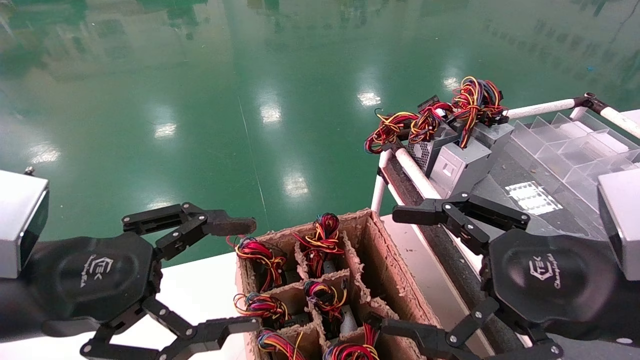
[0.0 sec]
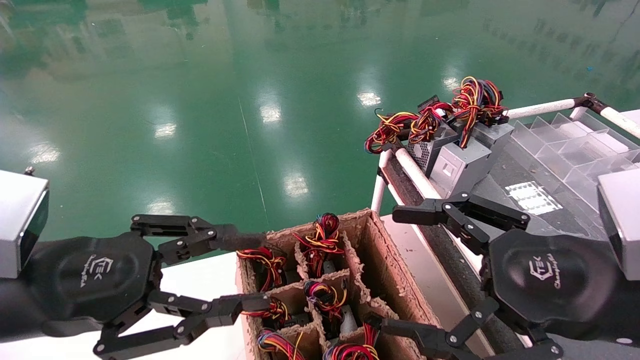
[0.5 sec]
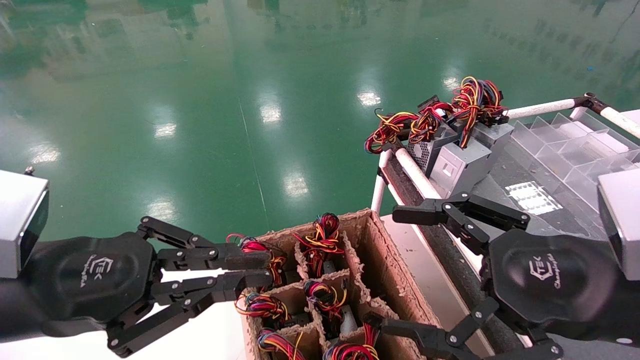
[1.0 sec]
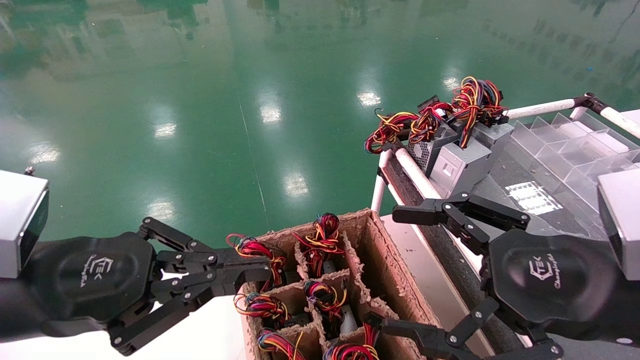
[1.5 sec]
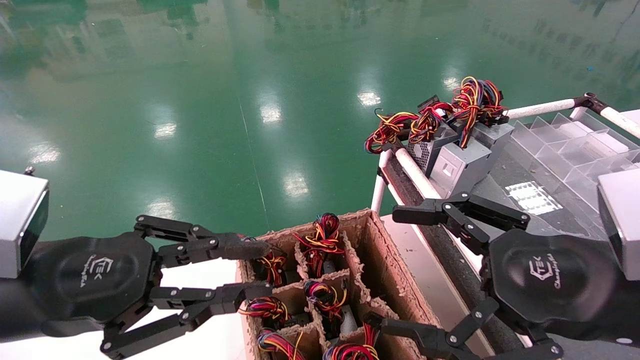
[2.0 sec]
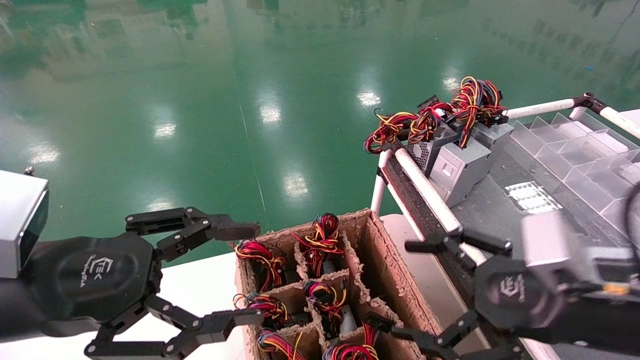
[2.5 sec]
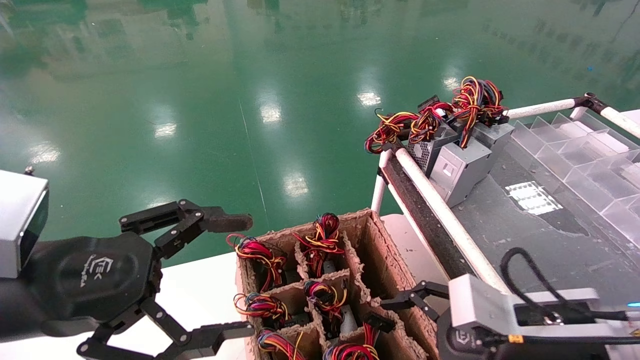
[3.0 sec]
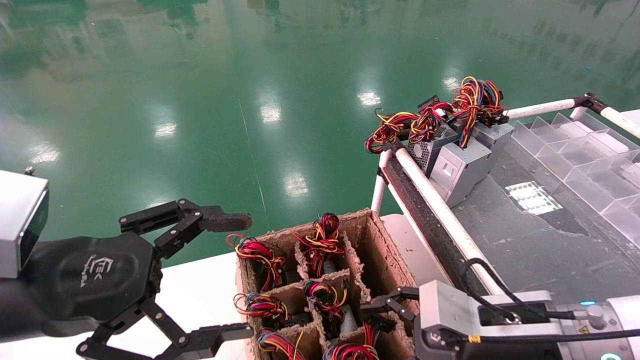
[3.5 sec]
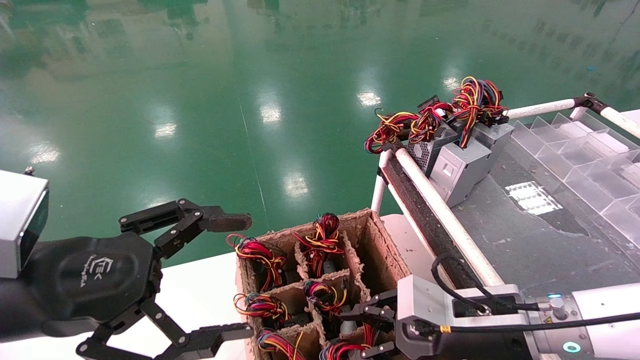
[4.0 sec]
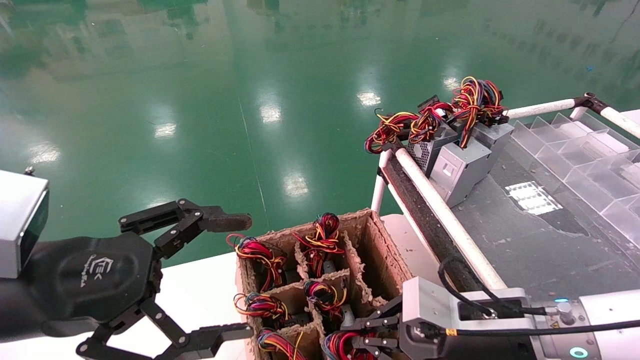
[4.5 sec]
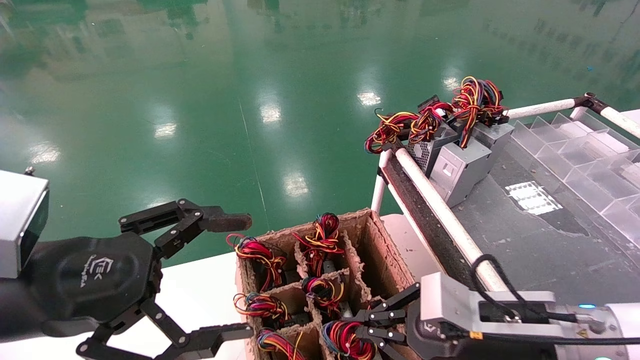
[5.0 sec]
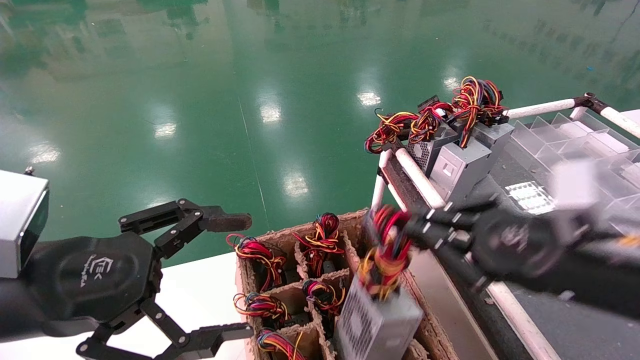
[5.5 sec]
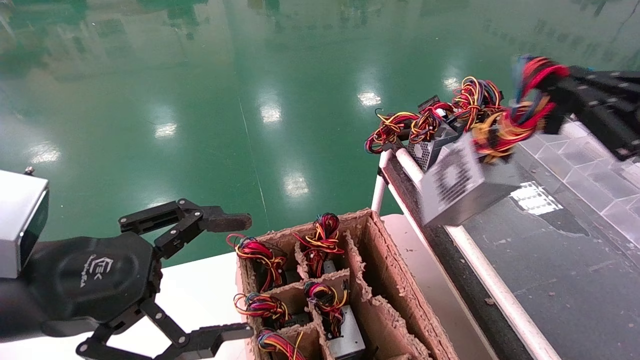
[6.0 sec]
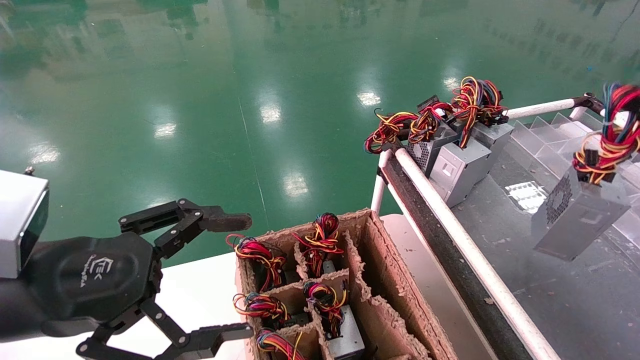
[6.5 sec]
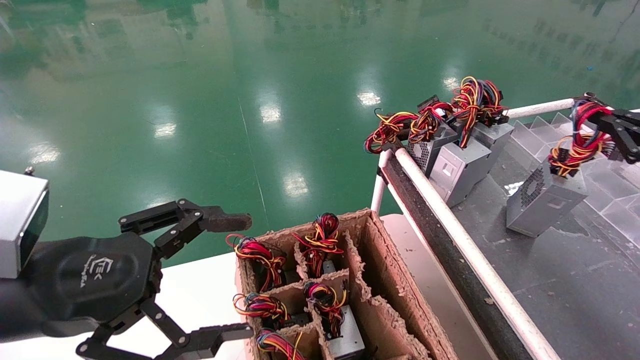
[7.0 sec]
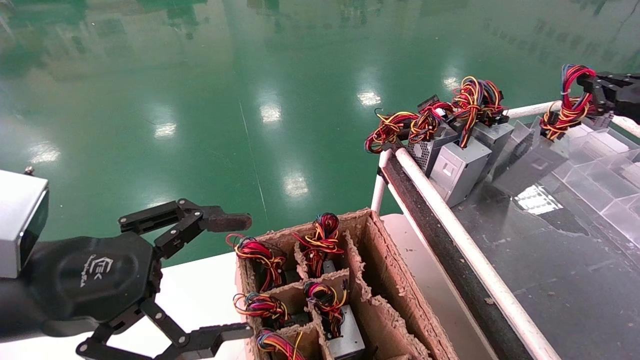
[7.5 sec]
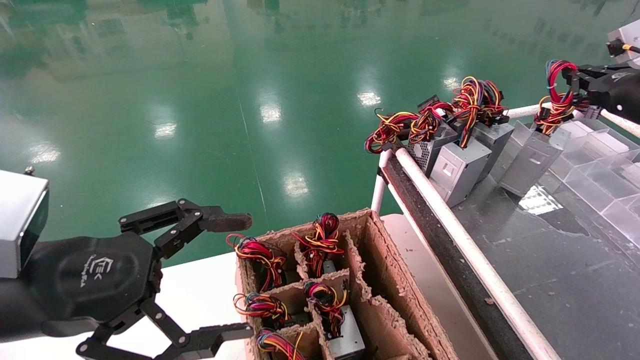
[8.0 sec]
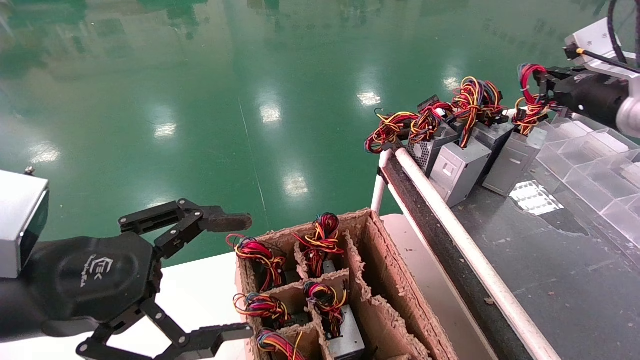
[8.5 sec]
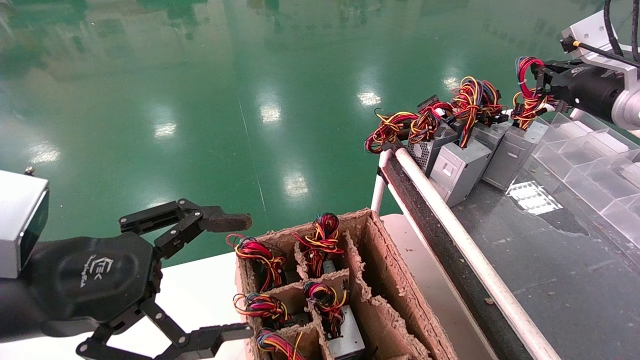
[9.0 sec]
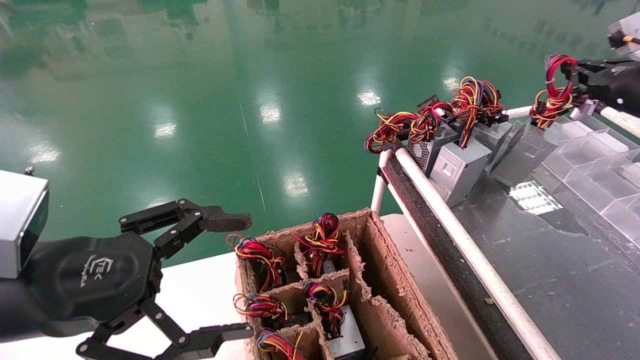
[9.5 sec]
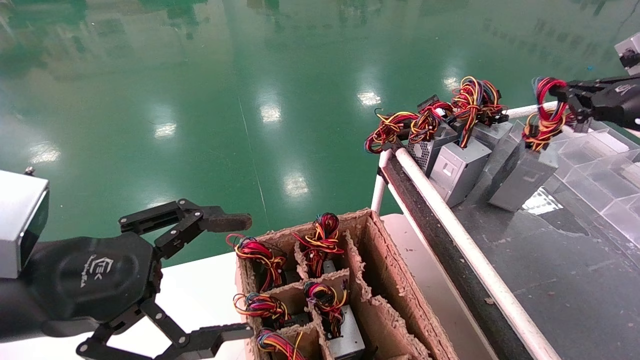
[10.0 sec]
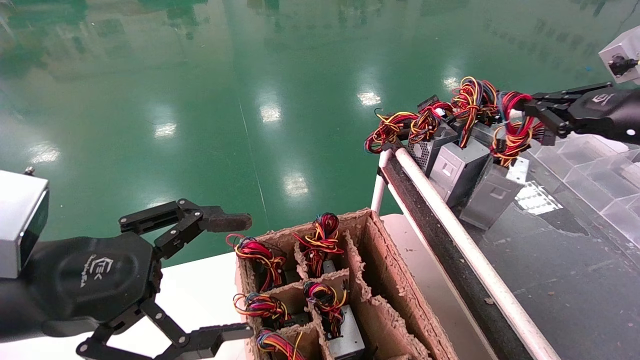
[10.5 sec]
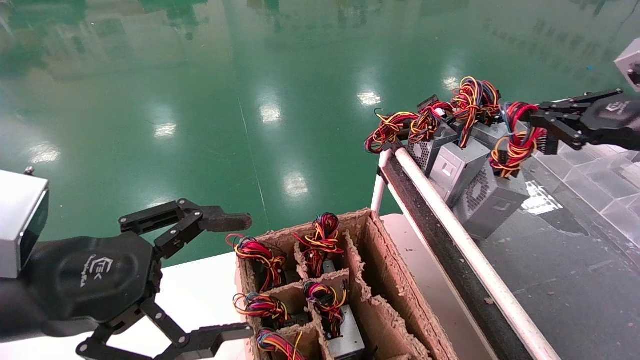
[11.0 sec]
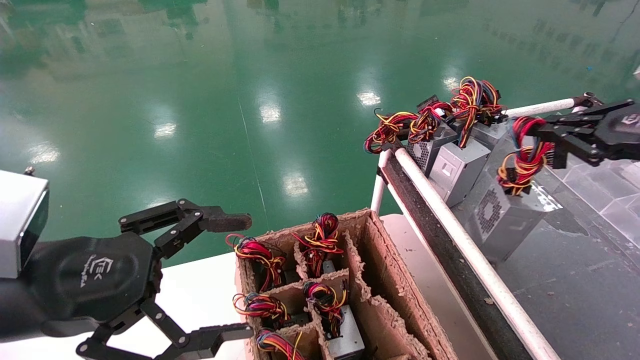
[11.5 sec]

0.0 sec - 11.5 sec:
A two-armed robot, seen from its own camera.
Step, 1.5 sec - 4.5 sec: Grab and lift the power supply from the large box.
0.0 sec - 2.0 sec: The left gripper closes.
2.0 sec - 4.0 sec: The right gripper moves downward, forward and to the left, roughly 15 cm, and closes up. The left gripper opens up.
4.0 sec - 6.0 sec: The right gripper is displaced to the right and upward by approximately 25 cm, and closes up.
6.0 sec - 7.5 sec: The right gripper is displaced forward and to the right by about 20 cm.
9.5 sec - 11.5 sec: The right gripper shifts approximately 10 cm backward.

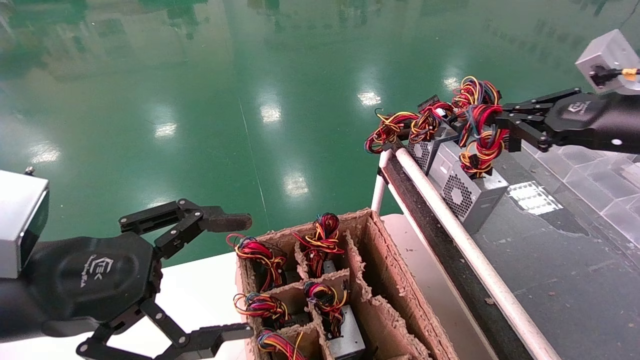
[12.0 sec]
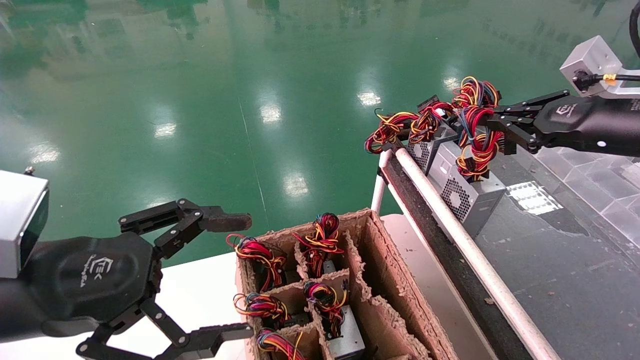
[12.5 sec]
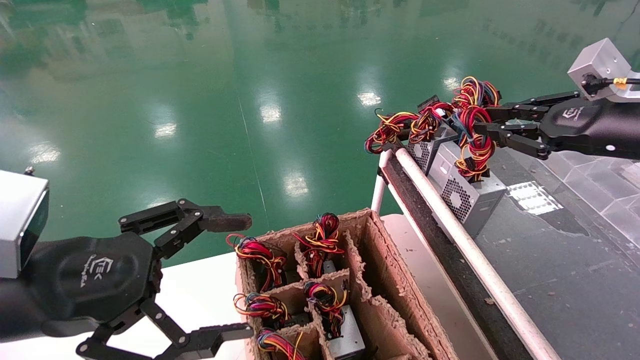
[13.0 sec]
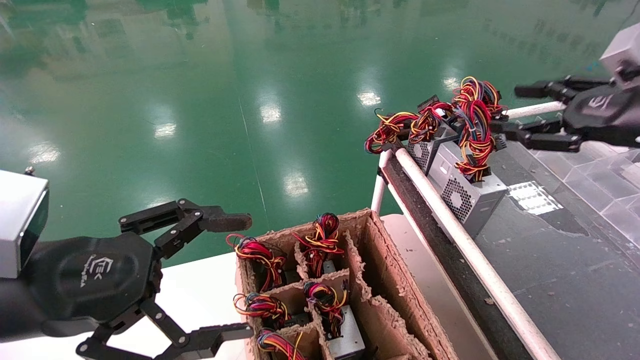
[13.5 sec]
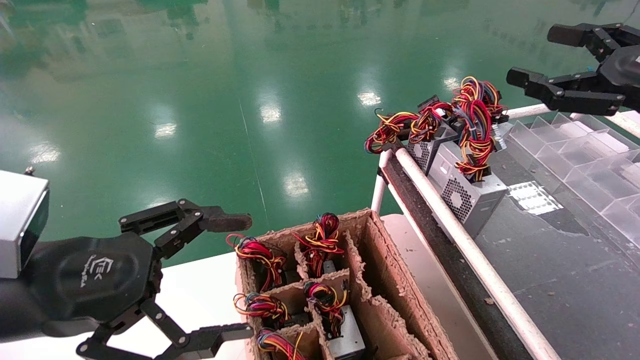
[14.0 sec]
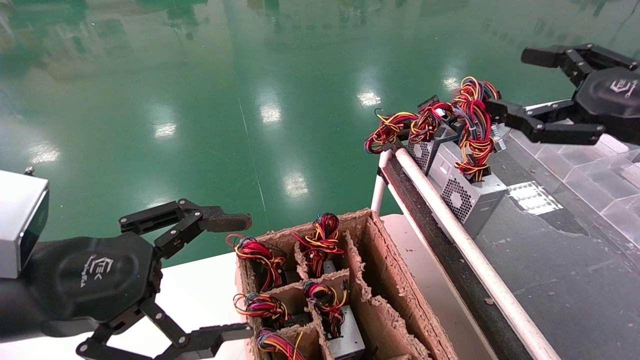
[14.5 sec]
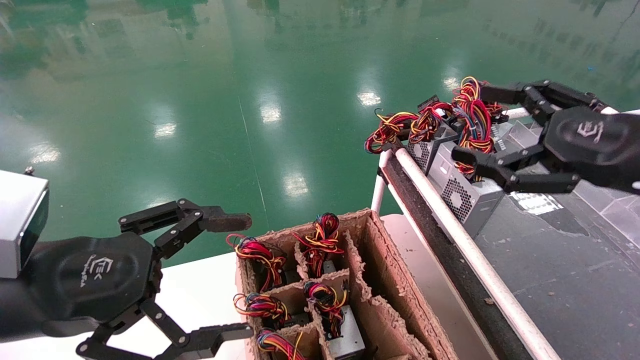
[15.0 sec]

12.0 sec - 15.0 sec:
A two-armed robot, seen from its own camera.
12.0 sec - 13.5 sec: The right gripper opens up.
13.5 sec - 15.0 sec: The right gripper moves backward, approximately 5 cm, and opens its fingers.
